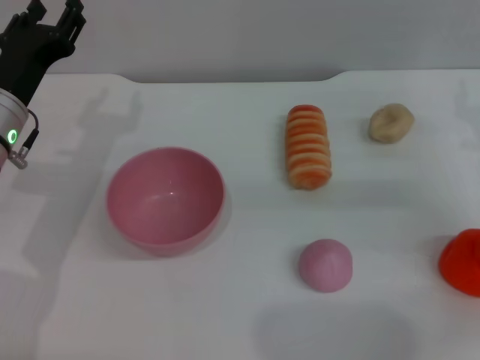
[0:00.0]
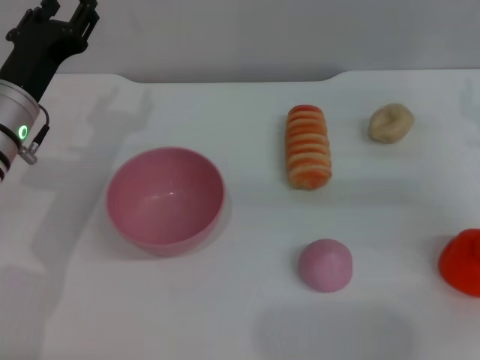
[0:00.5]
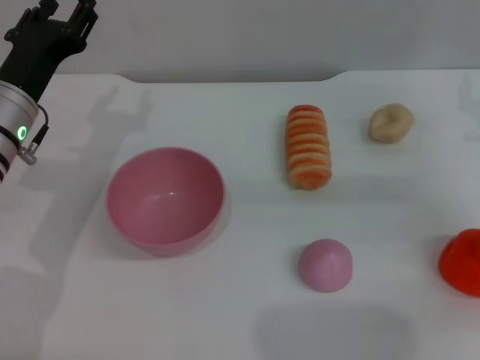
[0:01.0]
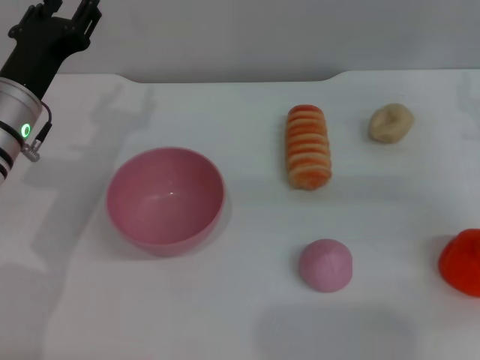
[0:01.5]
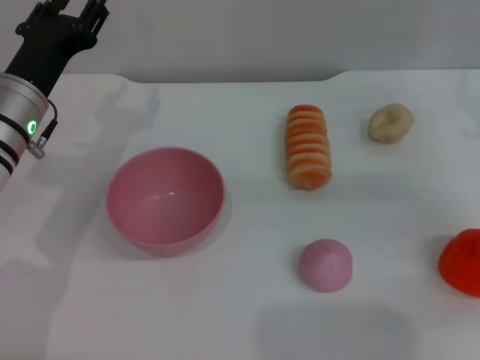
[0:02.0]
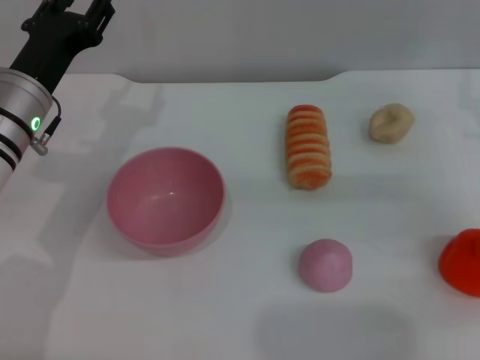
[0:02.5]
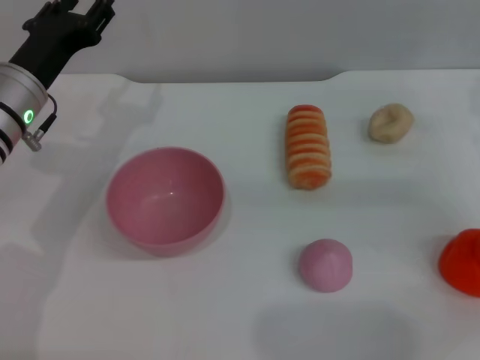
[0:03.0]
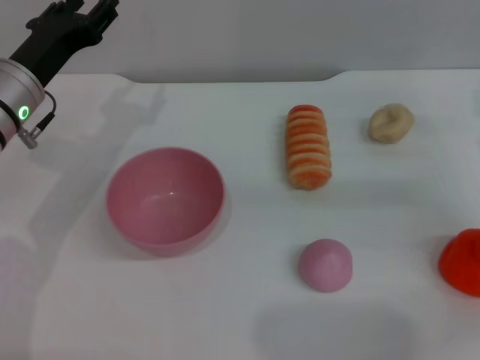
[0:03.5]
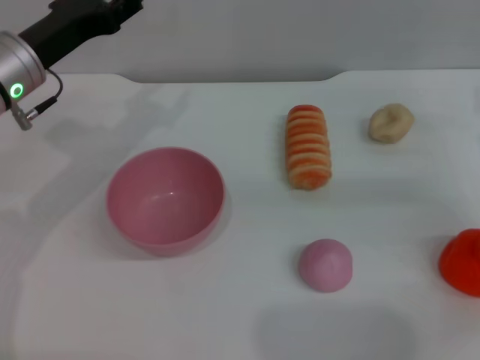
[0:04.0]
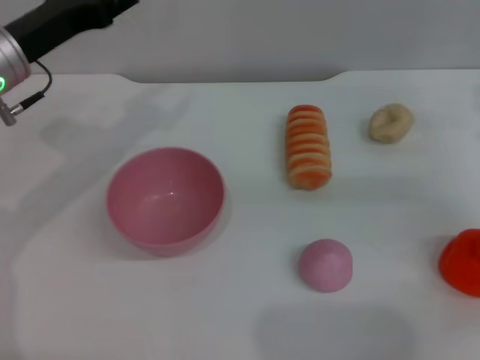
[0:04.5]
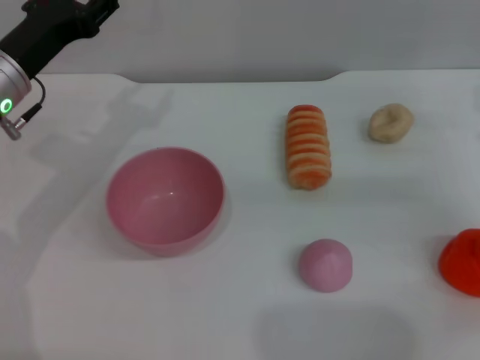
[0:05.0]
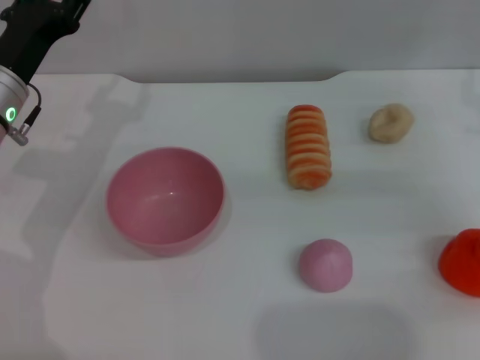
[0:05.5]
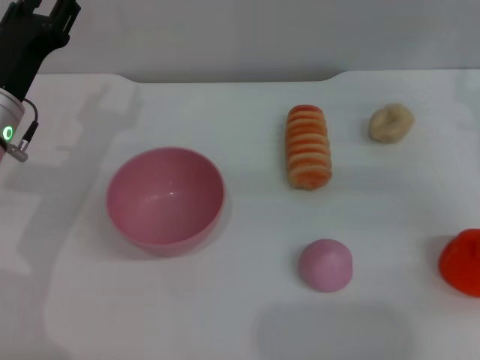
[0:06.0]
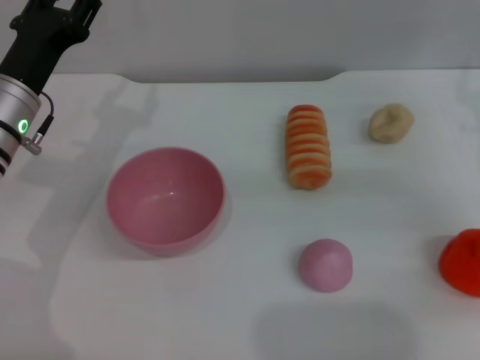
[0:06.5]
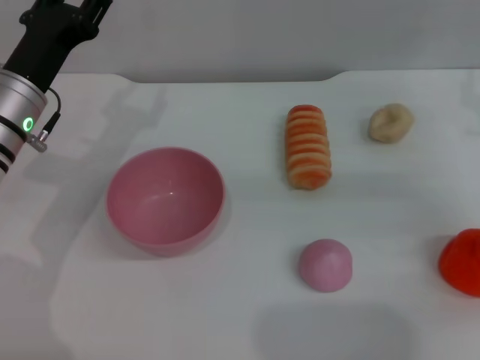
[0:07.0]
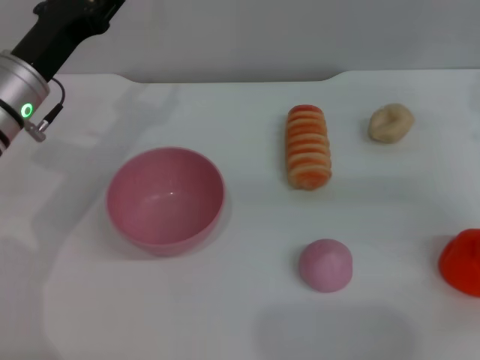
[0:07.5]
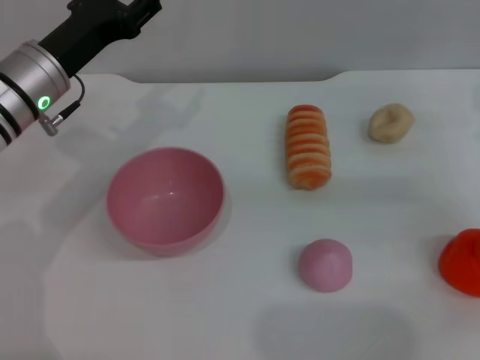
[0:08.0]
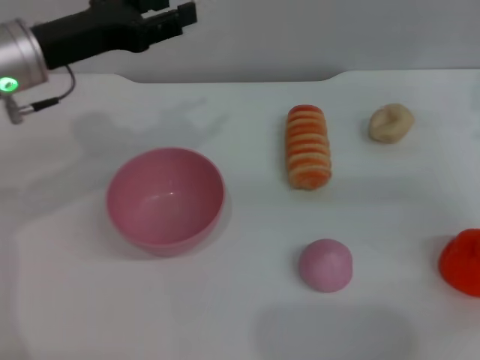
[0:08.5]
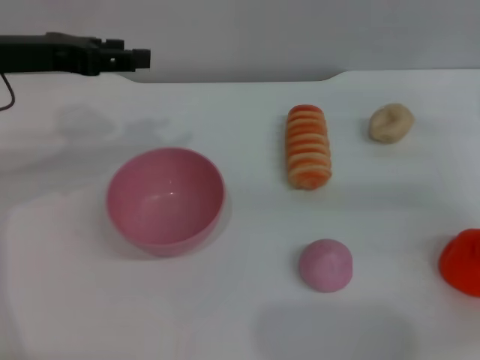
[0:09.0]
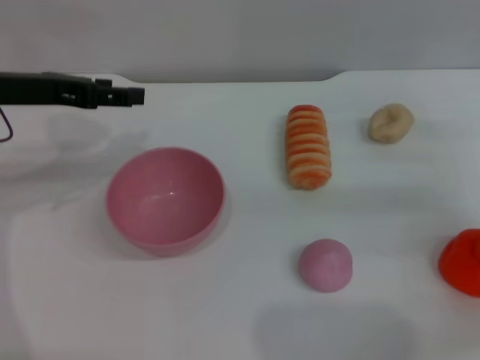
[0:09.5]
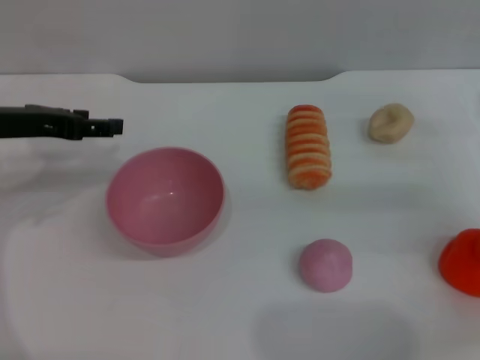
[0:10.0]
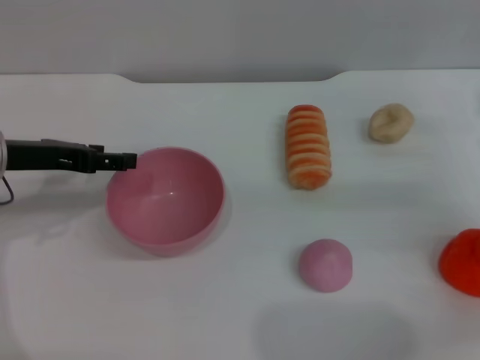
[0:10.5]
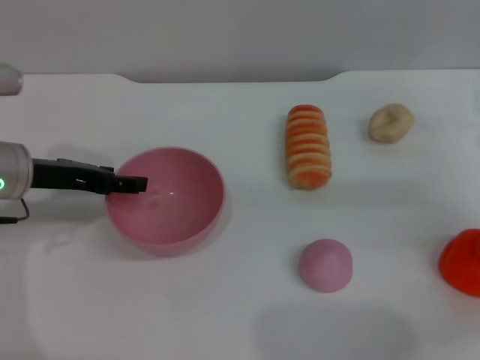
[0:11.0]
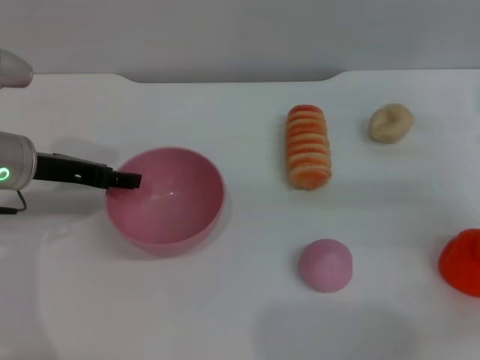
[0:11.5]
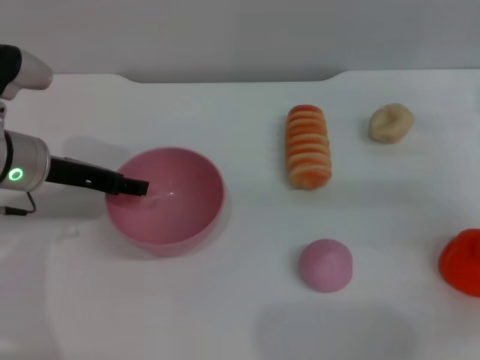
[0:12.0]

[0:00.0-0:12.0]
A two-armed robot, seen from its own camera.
Task of the whole recording: put the bread into the pink bowl and pour it out repeatedly.
0:00.0 to 0:02.0: The grippers stay close to where they were, moving slightly.
0:04.0 to 0:06.0: The left gripper moves approximately 5 cm.
0:06.0 to 0:08.0: The left gripper shifts by approximately 5 cm.
0:08.0 to 0:10.0: The left gripper is displaced to the left by approximately 5 cm, and moves roughly 10 cm upward and comes back.
0:10.0 to 0:12.0: The left gripper changes place by roughly 5 cm.

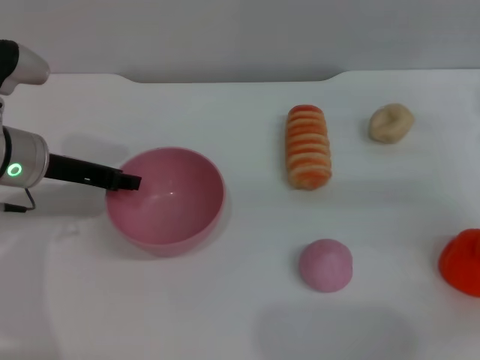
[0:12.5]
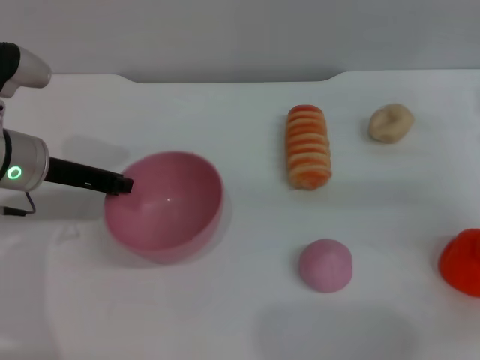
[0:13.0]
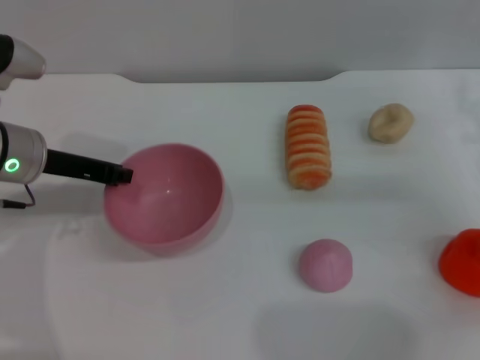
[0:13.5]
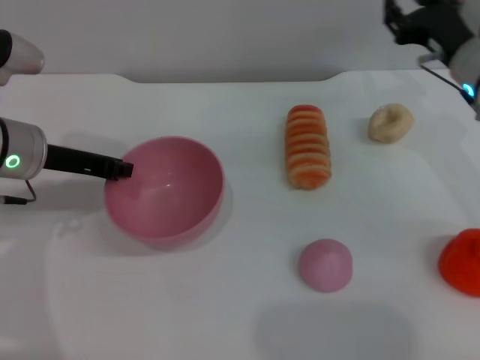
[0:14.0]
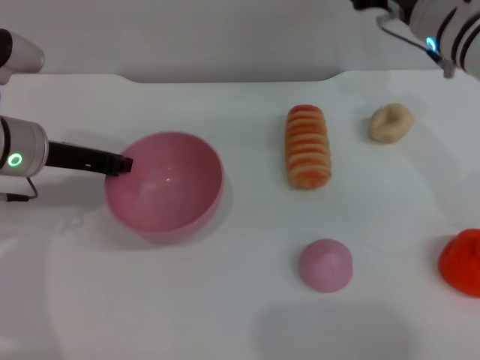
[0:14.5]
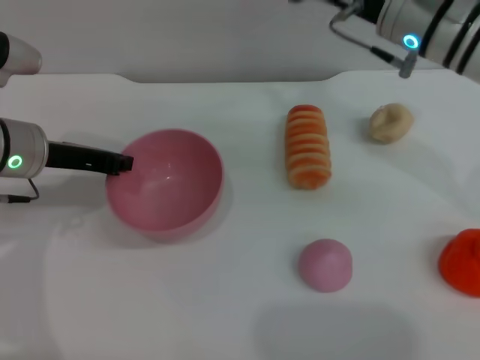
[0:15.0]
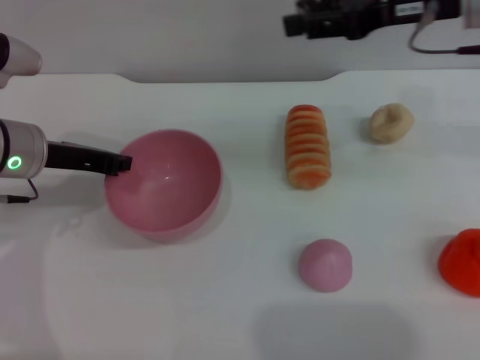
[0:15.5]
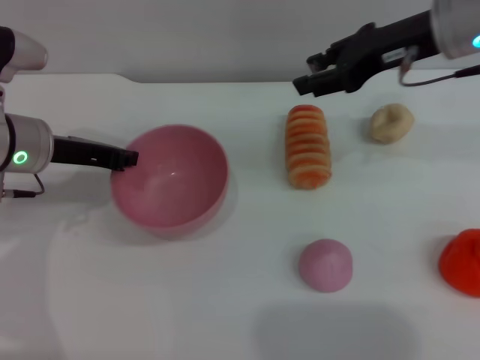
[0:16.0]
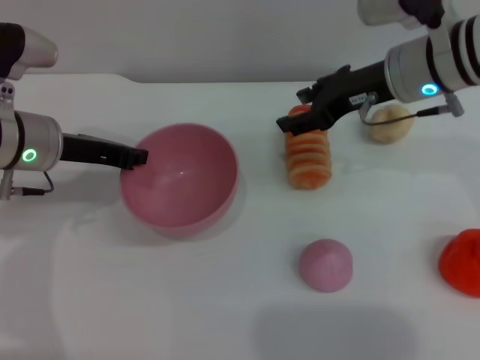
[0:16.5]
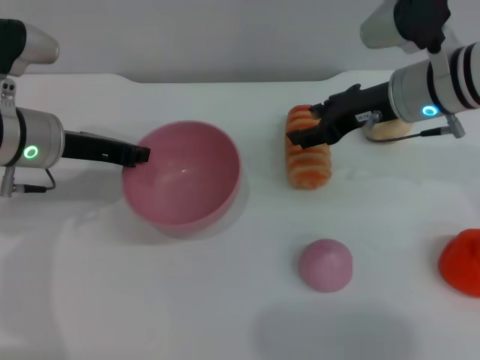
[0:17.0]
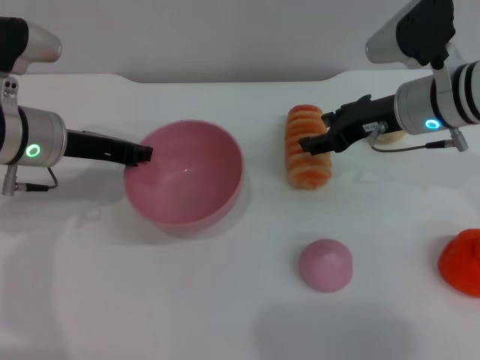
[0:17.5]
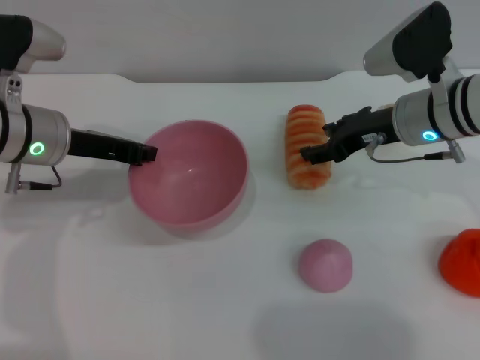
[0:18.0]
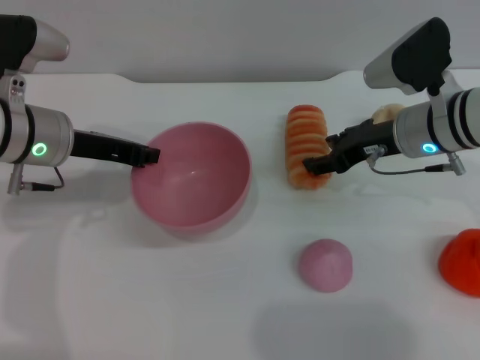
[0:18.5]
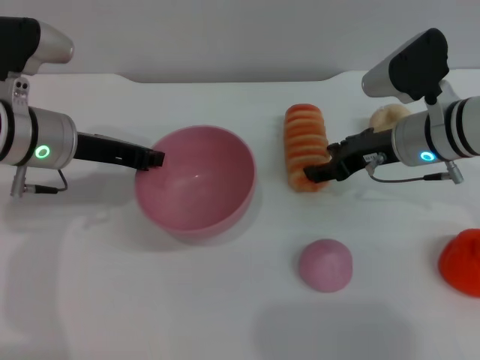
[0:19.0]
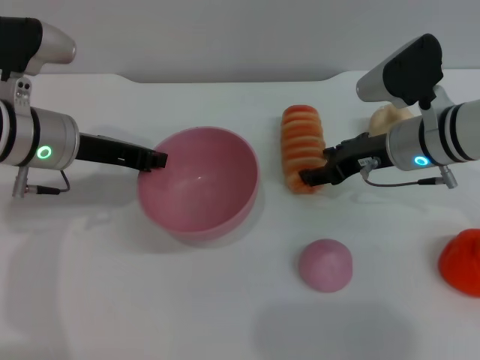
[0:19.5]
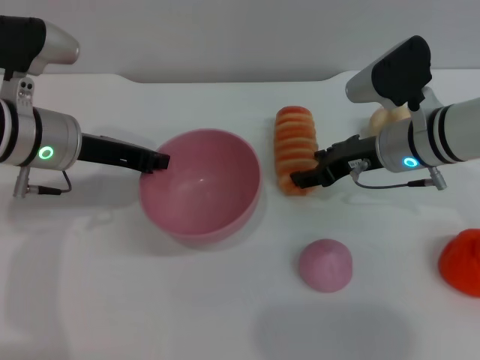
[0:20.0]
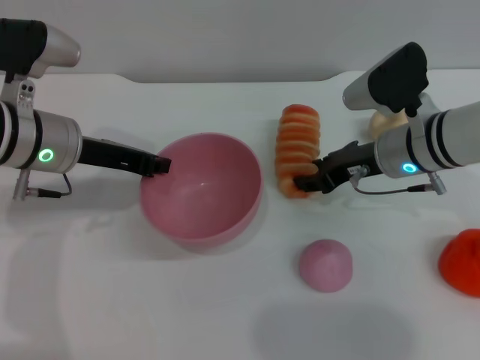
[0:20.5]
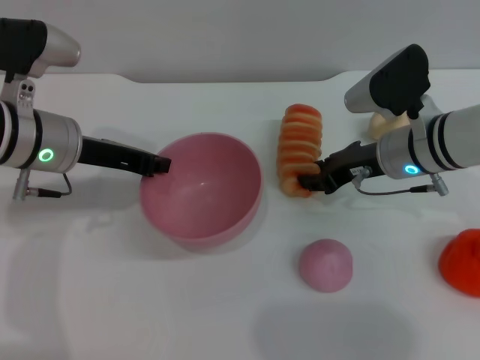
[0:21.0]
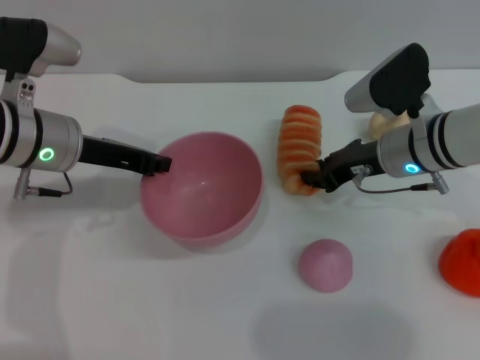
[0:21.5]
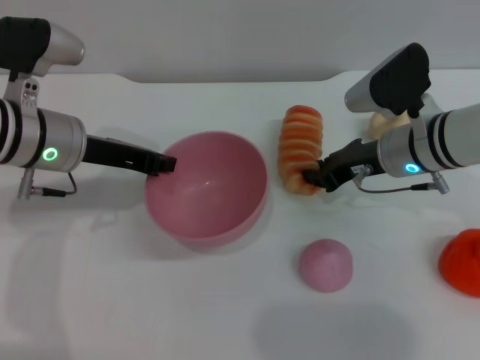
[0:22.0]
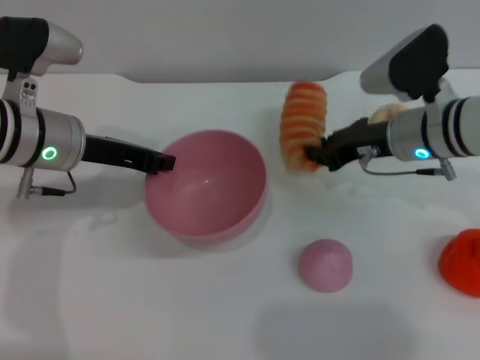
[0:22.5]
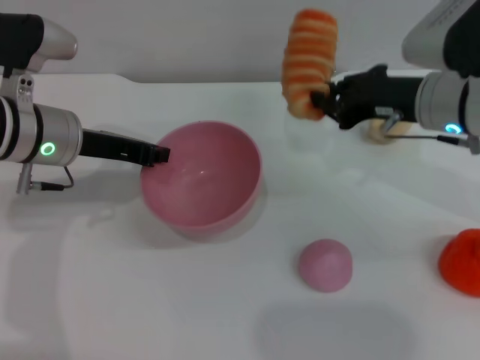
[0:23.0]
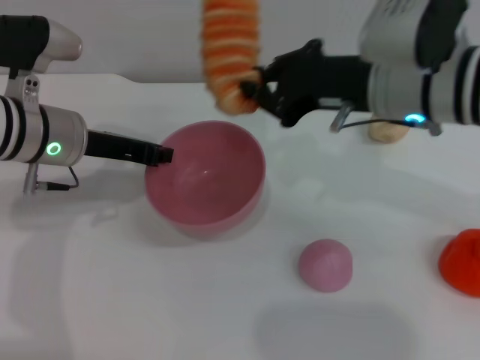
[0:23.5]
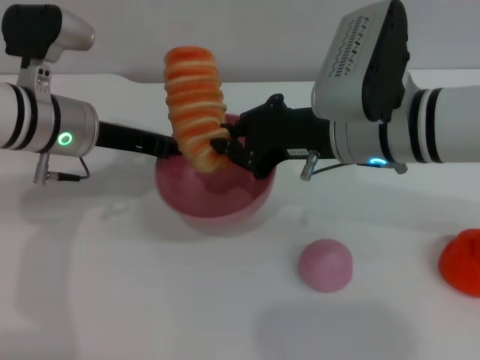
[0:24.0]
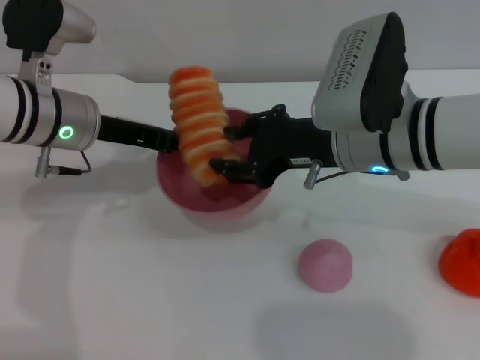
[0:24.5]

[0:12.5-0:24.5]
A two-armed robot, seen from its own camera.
Task of the whole recording: put the bread into the pink bowl and pour it out repeatedly.
Step, 0:17.5 to 0:23.0: Pick up the bread with the right gripper.
0:12.5 to 0:14.5: The left gripper closes up; the right gripper moves to the left, forward and upward, approximately 15 cm.
0:14.5 to 0:16.5: The right gripper travels upward and back again, about 10 cm each way.
0:16.5 to 0:18.5: The right gripper heads downward, covering about 5 cm.
0:18.5 to 0:20.5: The grippers make only small movements.
0:20.5 to 0:22.5: The right gripper closes up.
0:22.5 to 0:24.5: The right gripper moves to the left, backward and upward, approximately 10 cm.

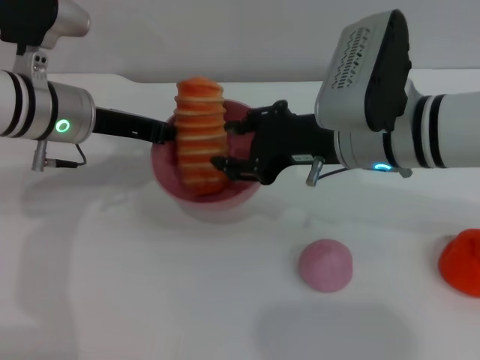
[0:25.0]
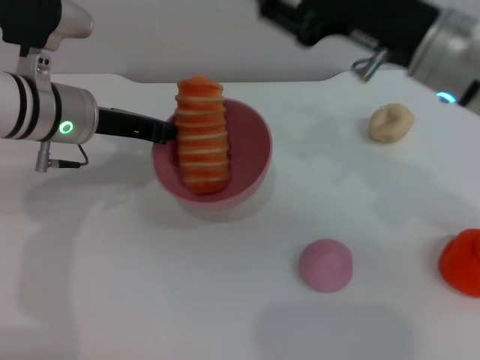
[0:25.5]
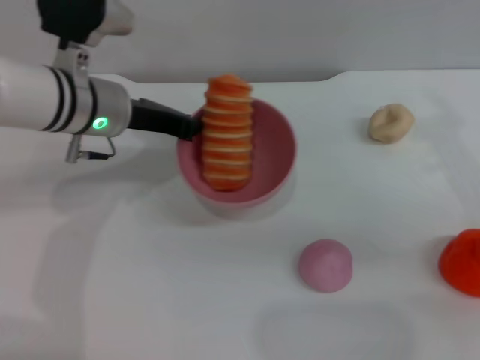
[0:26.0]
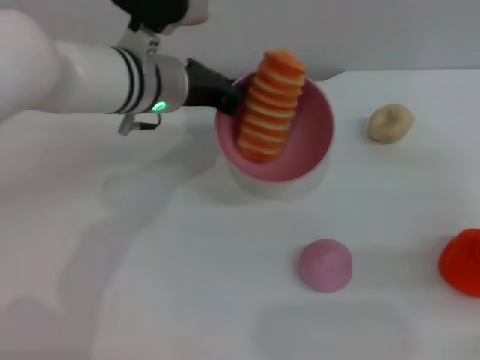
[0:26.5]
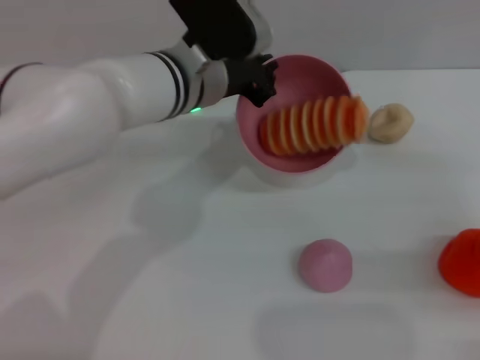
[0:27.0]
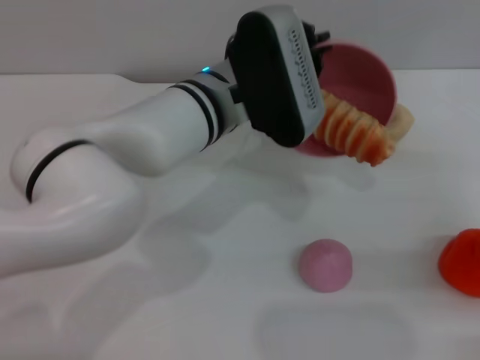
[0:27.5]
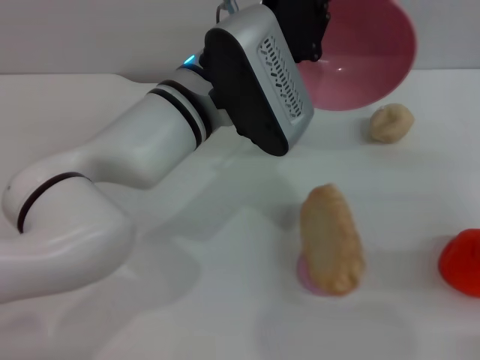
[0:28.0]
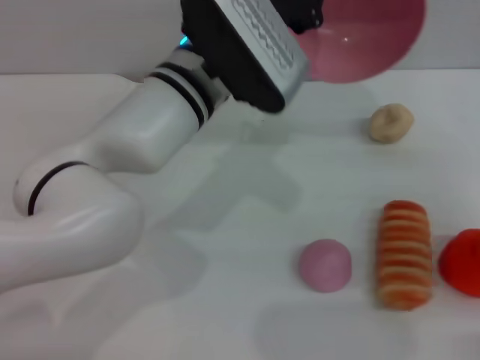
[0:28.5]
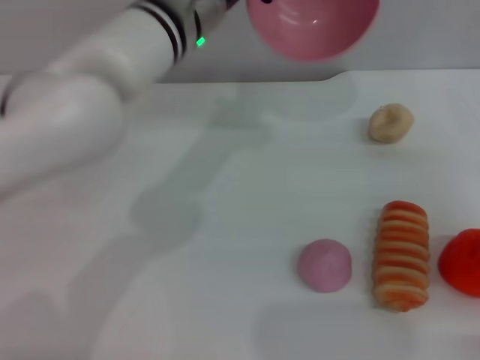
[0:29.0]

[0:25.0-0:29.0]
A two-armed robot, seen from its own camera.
Task of the whole recording: put the bread into the pink bowl and pour it out repeatedly.
Step, 0:25.5 to 0:28.5: Pour the bread out of the bowl.
0:25.0 to 0:27.0: The right gripper is displaced to the right by approximately 20 cm. The left gripper moves to the right, about 15 cm.
